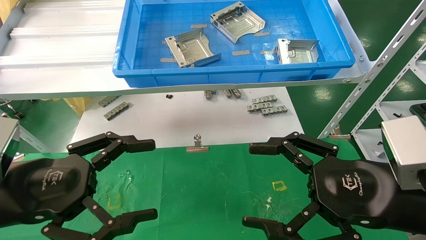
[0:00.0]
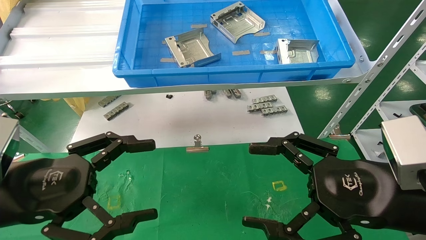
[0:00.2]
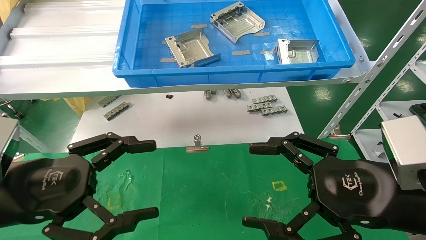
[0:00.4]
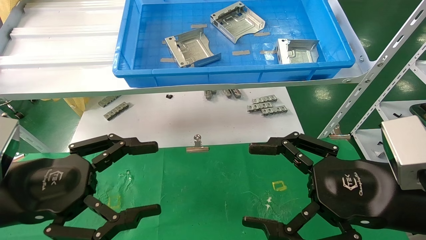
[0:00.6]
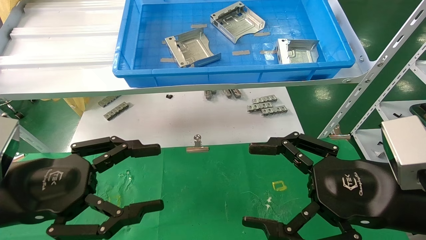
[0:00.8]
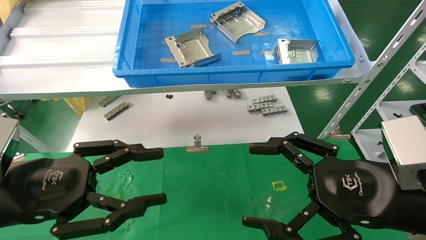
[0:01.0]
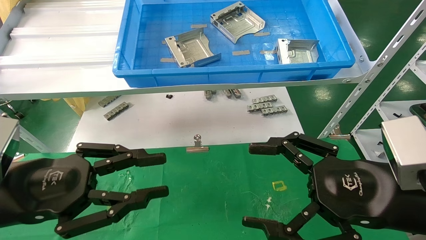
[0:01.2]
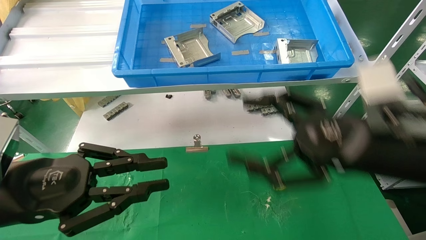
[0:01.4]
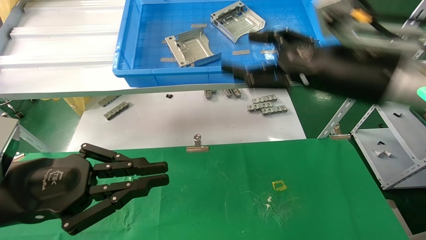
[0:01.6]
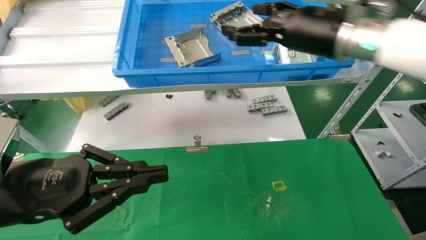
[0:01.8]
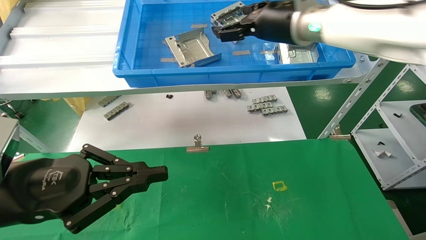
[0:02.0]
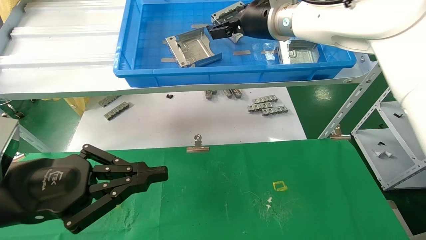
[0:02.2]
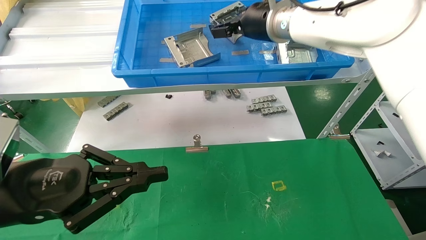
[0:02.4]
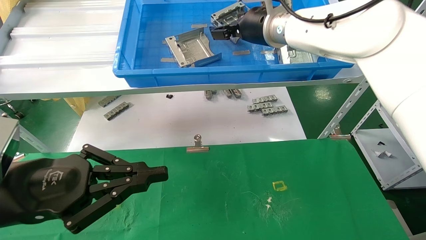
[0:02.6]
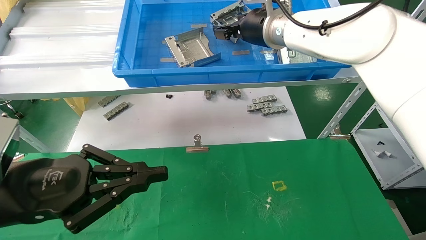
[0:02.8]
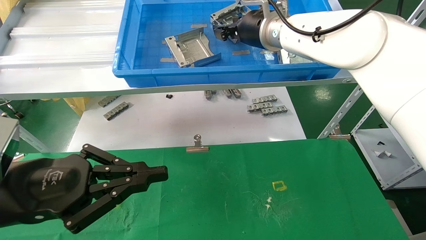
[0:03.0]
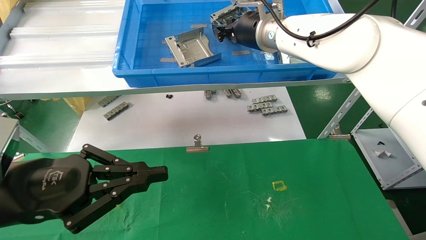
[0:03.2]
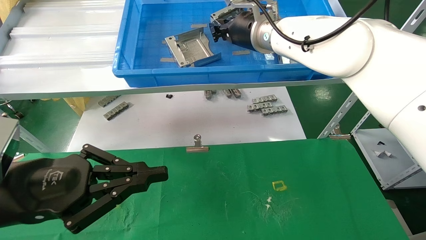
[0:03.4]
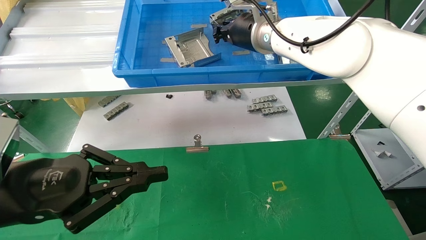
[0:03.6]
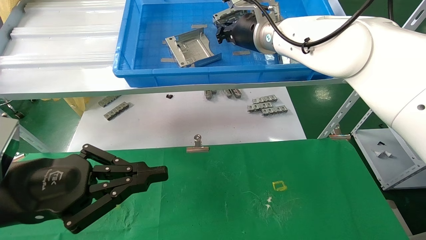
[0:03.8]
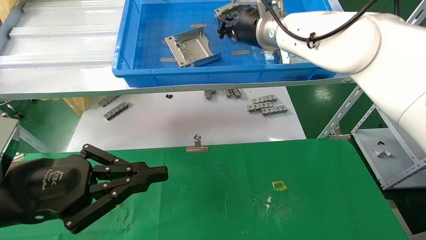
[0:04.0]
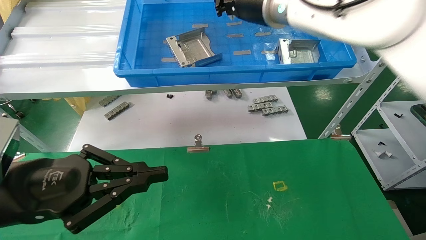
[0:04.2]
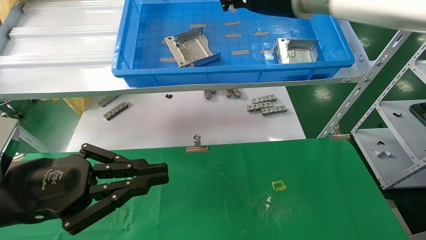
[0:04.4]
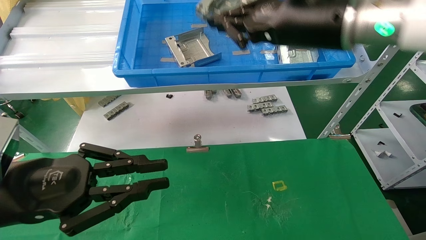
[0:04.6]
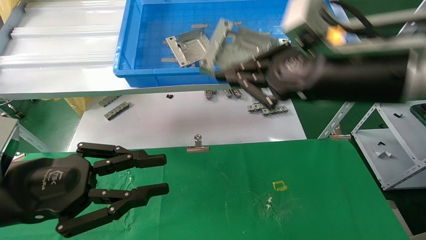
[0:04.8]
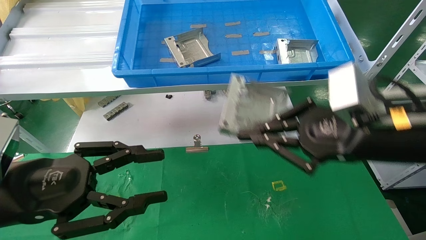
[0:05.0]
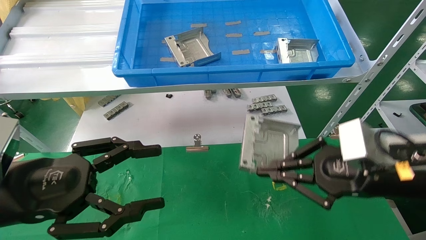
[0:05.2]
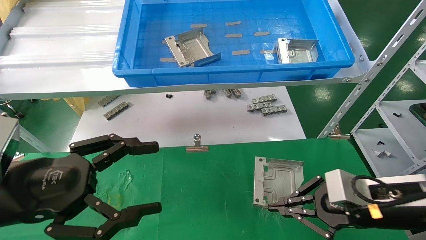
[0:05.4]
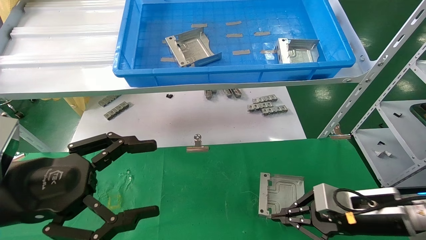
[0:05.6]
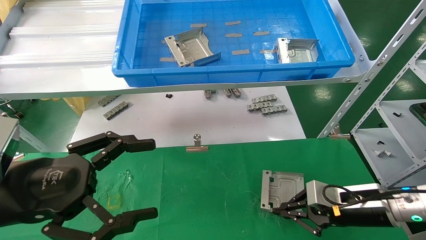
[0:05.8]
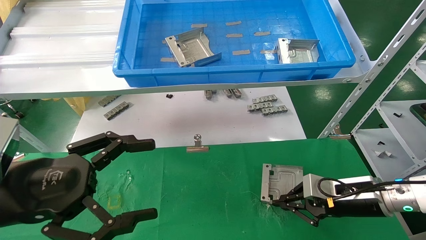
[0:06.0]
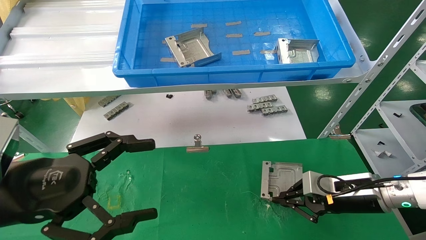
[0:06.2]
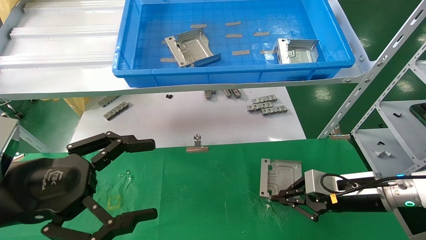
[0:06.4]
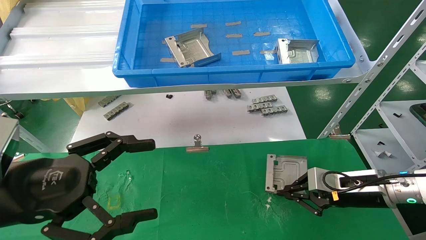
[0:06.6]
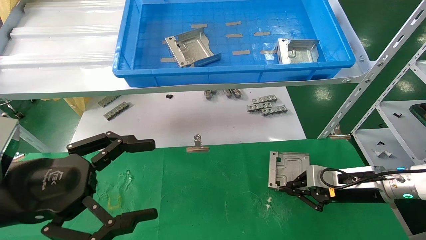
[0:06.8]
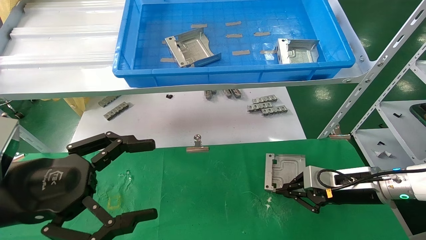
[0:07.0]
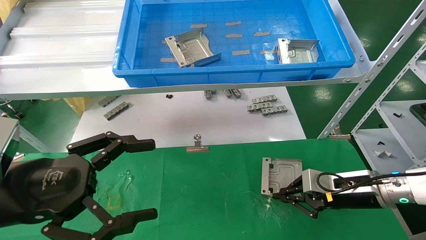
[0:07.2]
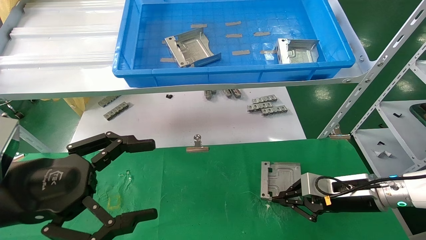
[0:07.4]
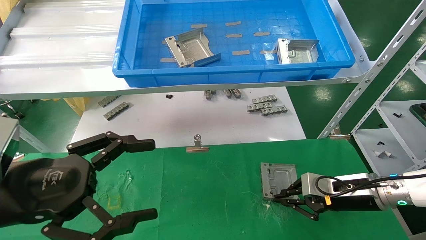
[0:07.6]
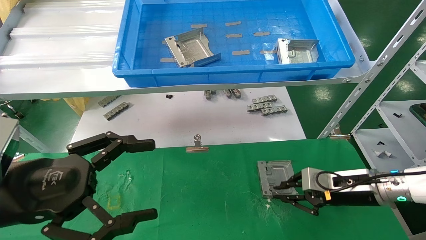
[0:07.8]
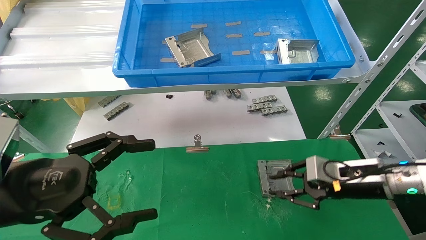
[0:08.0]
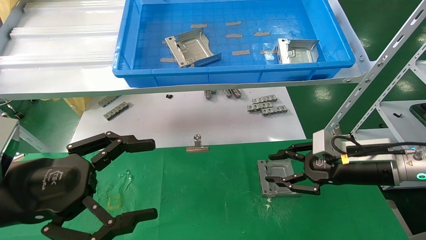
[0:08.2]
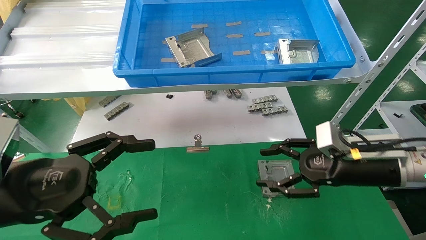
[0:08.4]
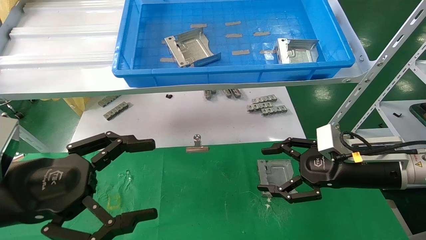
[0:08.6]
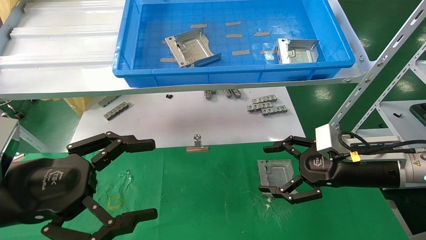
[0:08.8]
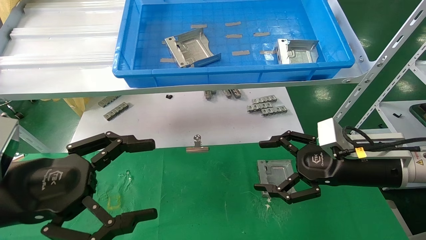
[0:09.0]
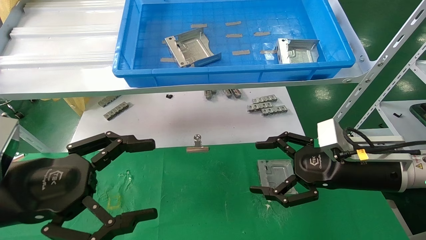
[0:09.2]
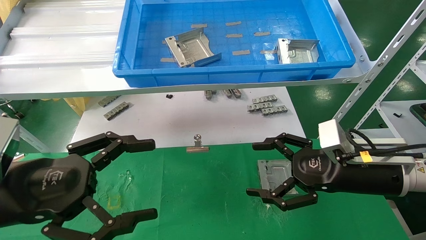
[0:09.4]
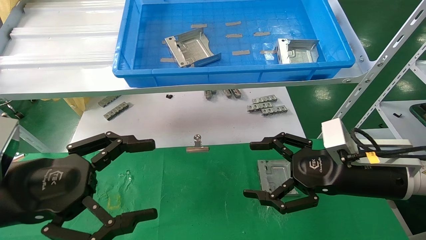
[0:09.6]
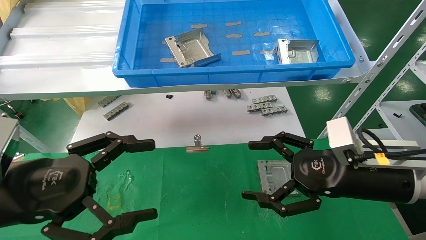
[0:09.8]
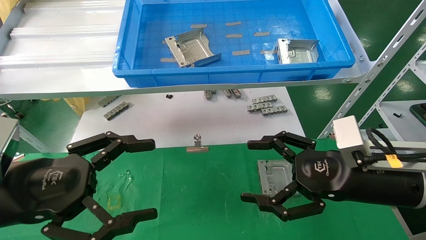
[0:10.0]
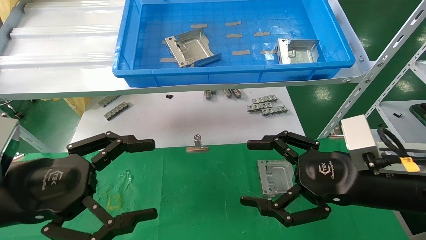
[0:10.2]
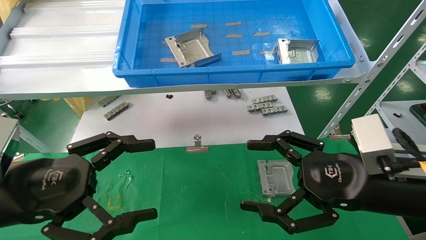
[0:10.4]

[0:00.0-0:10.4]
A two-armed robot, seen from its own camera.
Task of the whole recording: use the mechanical arm to pick up the parts and place them on the table.
Step, 0:01.4 to 0:04.2: Pick up the hard drive bracket from the feeding area.
Step, 0:04.4 to 0:08.0: Place the hard drive bracket into the box.
0:00.0 to 0:01.4: The right gripper heads upward and forward, covering roughly 10 cm; the left gripper closes up.
0:01.4 to 0:03.0: The right gripper heads forward, to the left and upward, covering roughly 25 cm, and closes.
0:03.0 to 0:04.4: The right gripper moves backward, approximately 10 cm, and closes up.
0:04.4 to 0:06.0: The right gripper goes approximately 40 cm downward and to the right. The left gripper opens its fingers.
0:06.0 to 0:07.4: The grippers move only a little.
0:07.4 to 0:09.0: The right gripper goes roughly 10 cm upward, and opens its fingers.
0:09.0 to 0:10.4: The right gripper heads backward, covering some 10 cm.
